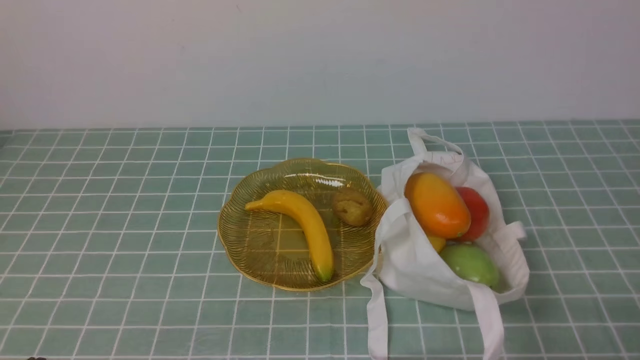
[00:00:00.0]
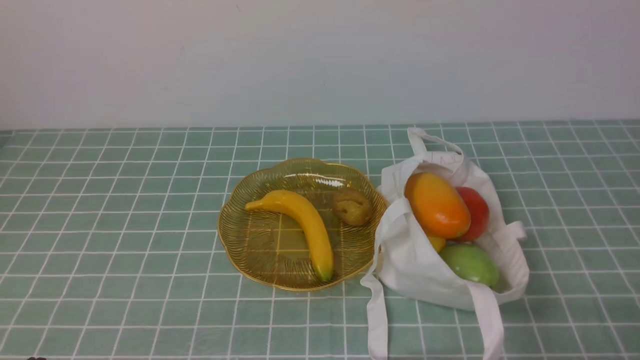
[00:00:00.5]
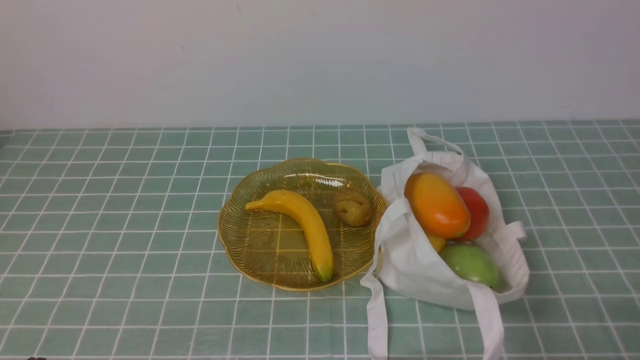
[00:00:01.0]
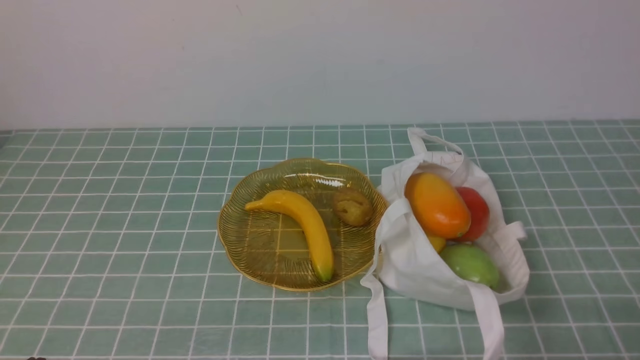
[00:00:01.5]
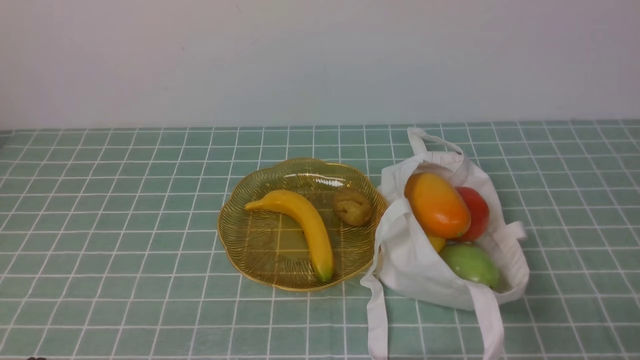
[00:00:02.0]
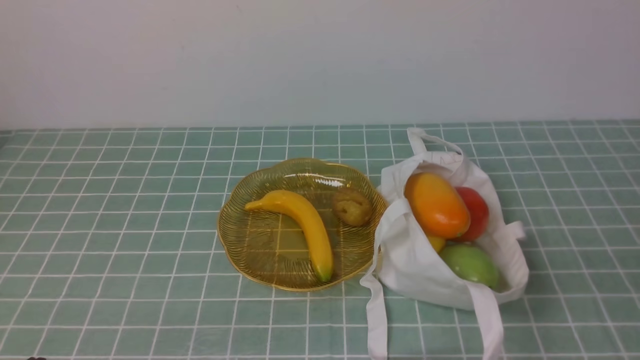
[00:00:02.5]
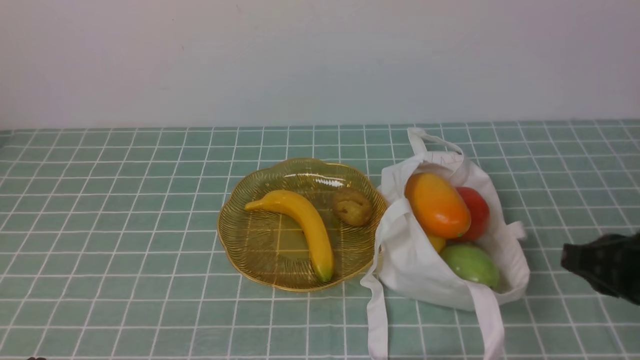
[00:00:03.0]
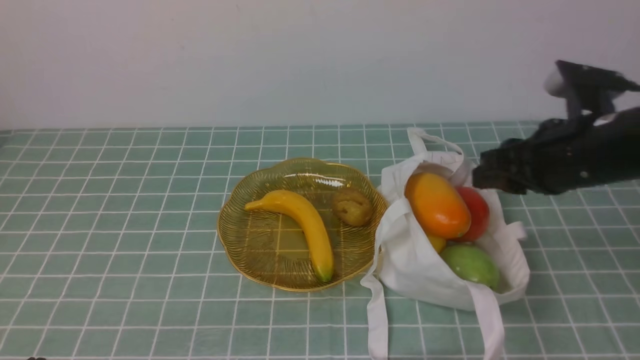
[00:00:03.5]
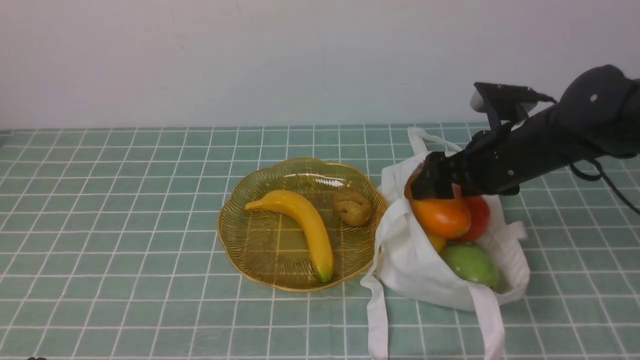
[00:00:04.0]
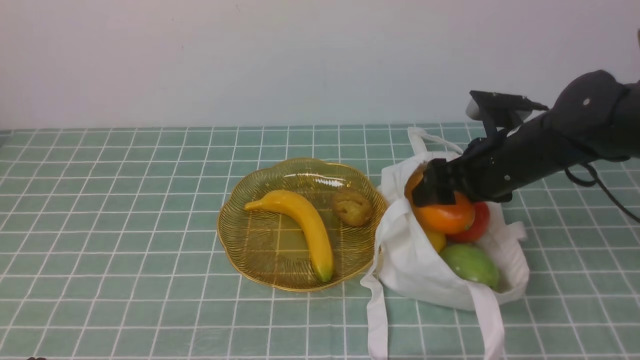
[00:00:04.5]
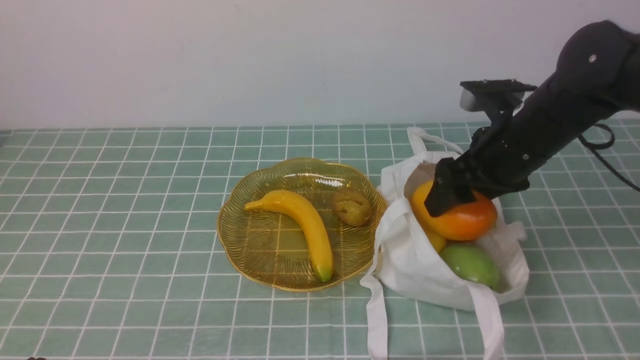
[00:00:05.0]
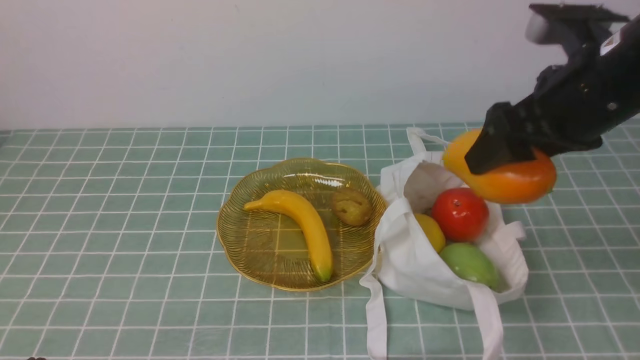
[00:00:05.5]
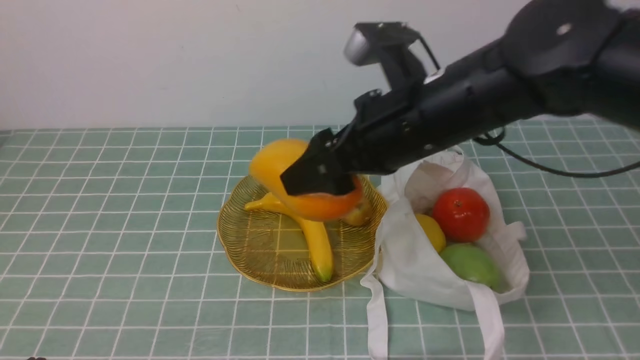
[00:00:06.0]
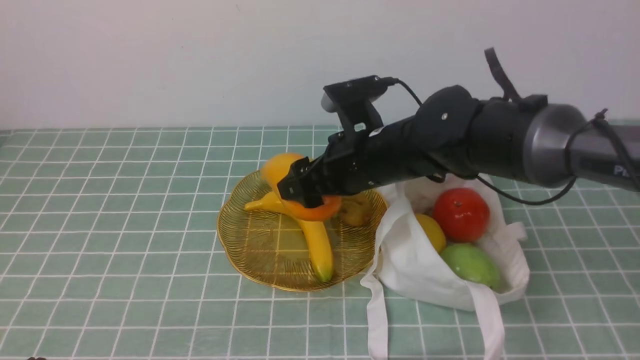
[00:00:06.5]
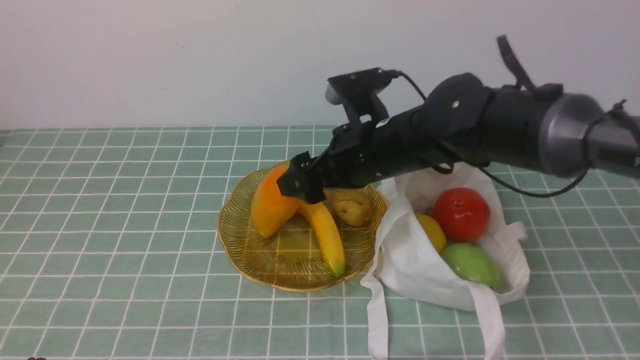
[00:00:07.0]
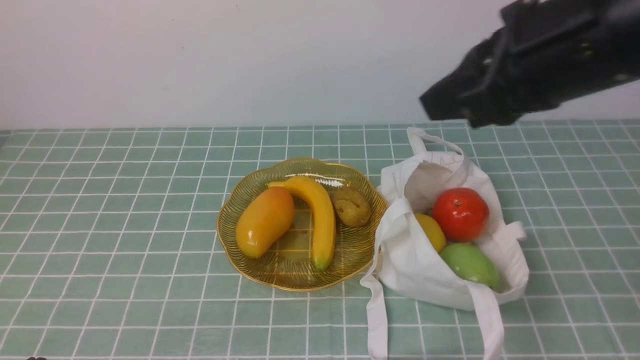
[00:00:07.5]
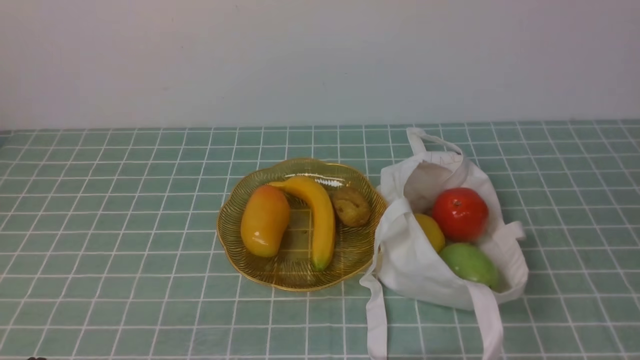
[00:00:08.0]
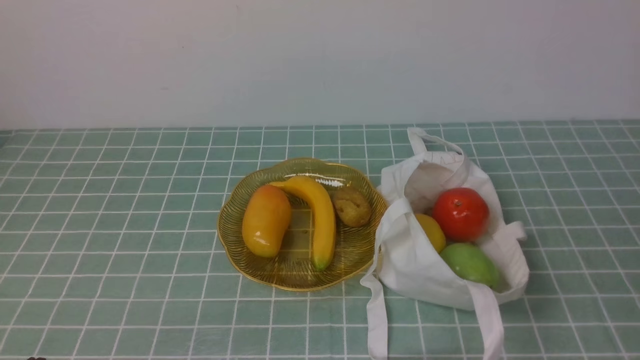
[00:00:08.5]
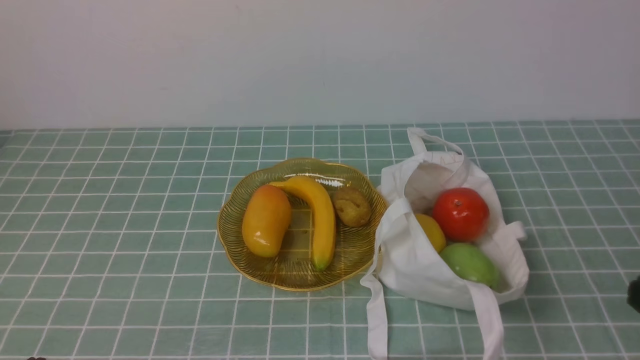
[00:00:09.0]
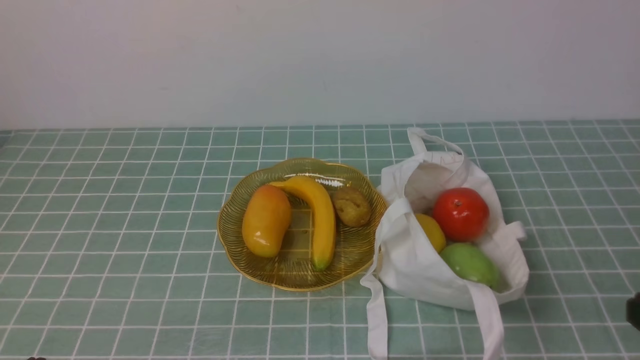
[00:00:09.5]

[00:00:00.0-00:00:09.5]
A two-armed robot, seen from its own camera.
Step, 00:00:00.0 to 00:00:04.5: use the right arm to grab a mango from the bag.
Step, 00:00:05.5 to 00:00:07.0: use the right arm to put the mango into the empty plate on the left.
00:00:02.0 to 00:00:04.0: The right gripper heads forward, covering approximately 30 cm, and opens.
00:00:04.0 to 00:00:05.5: The right gripper shifts roughly 15 cm upward and backward.
00:00:05.5 to 00:00:07.5: The right gripper heads upward and backward, covering about 10 cm, and closes its fingers.
00:00:07.5 to 00:00:09.5: The right gripper heads backward, downward and to the right, covering approximately 25 cm.

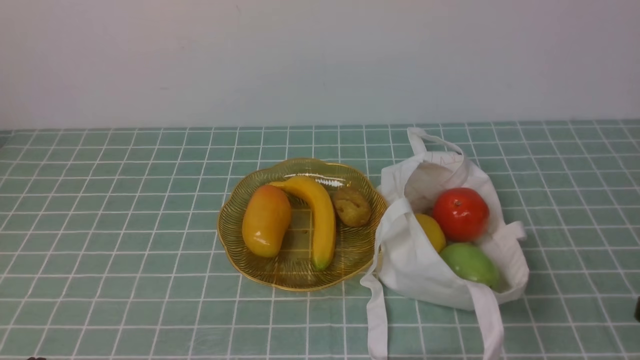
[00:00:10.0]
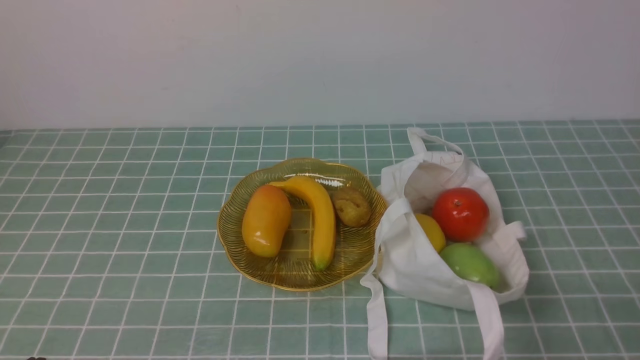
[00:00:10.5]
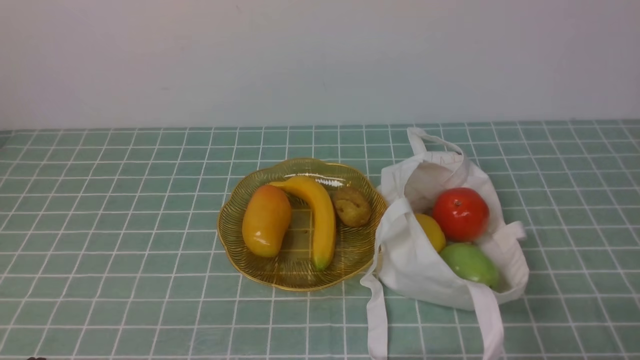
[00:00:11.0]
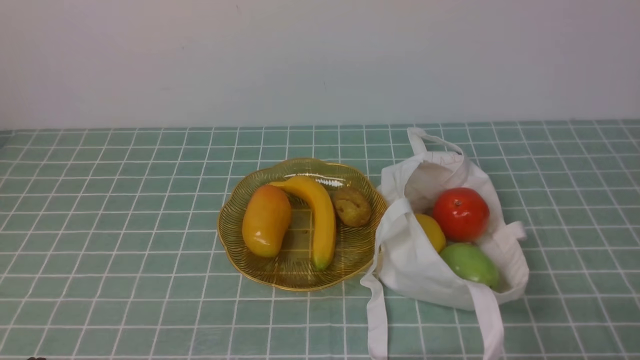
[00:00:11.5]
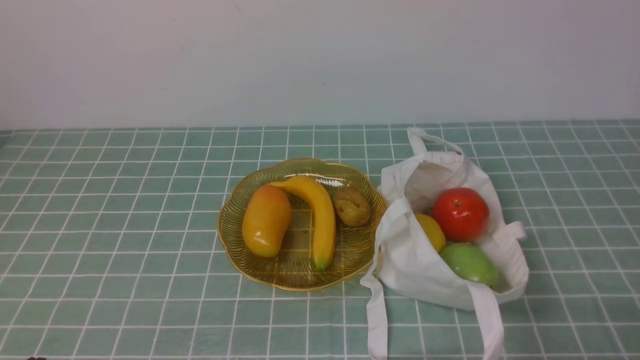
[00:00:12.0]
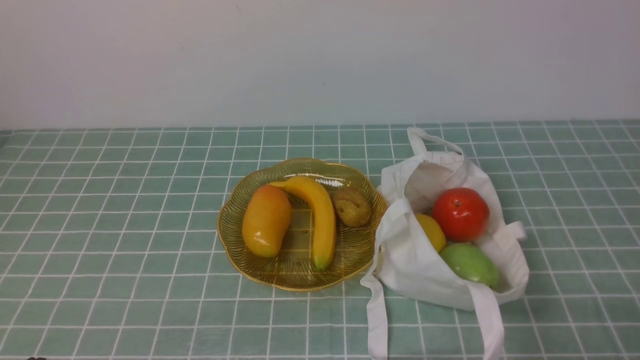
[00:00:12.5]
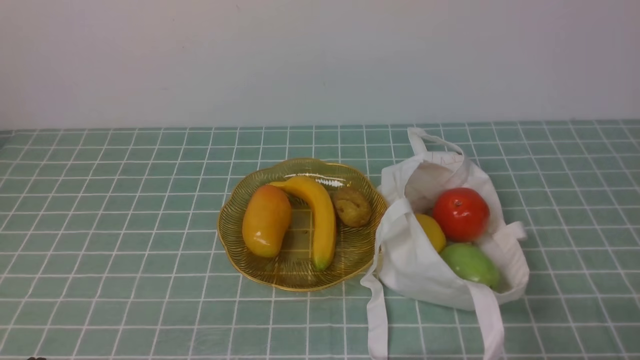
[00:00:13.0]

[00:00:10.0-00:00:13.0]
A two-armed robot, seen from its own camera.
00:00:11.5 to 00:00:13.0: Both grippers stay about where they are.
